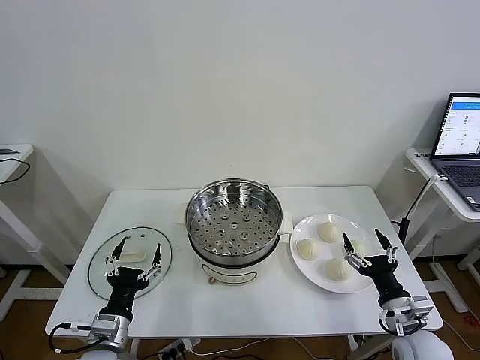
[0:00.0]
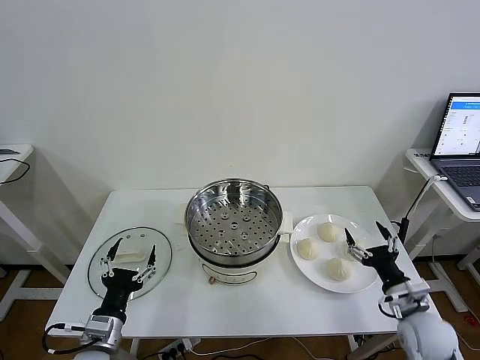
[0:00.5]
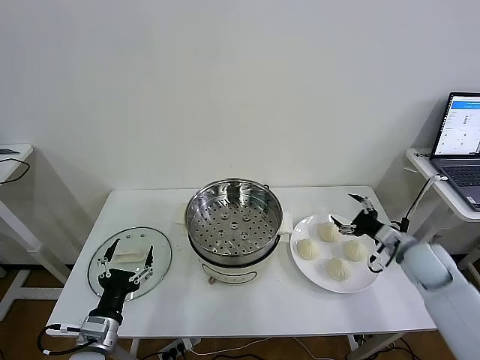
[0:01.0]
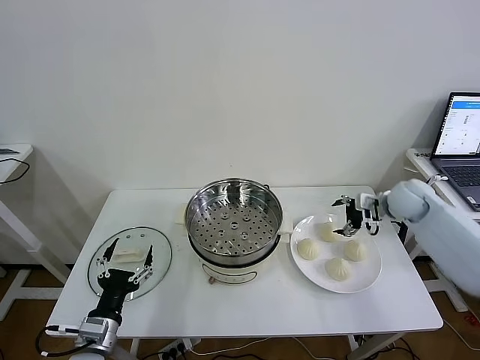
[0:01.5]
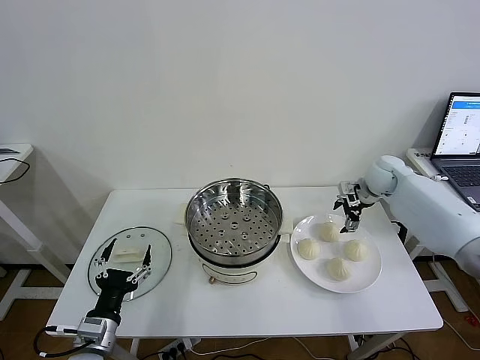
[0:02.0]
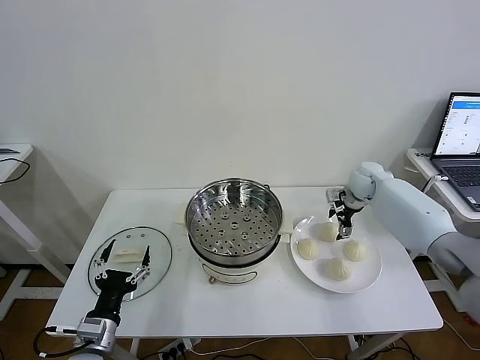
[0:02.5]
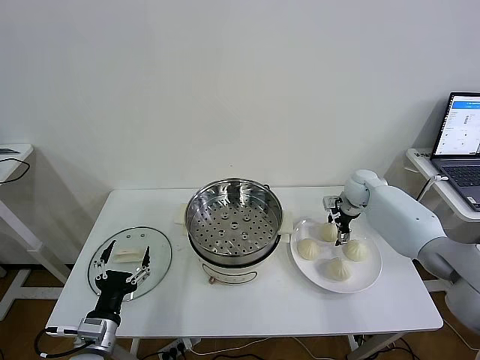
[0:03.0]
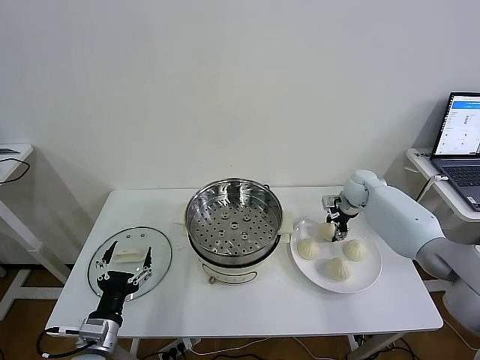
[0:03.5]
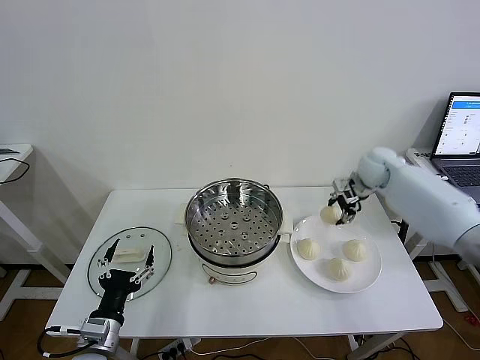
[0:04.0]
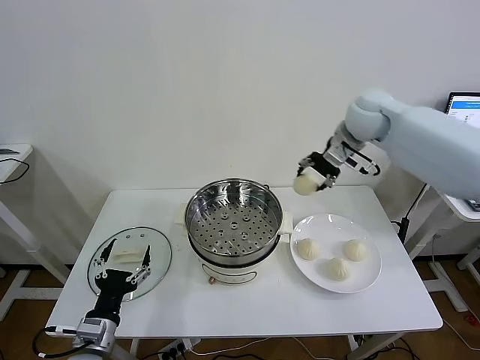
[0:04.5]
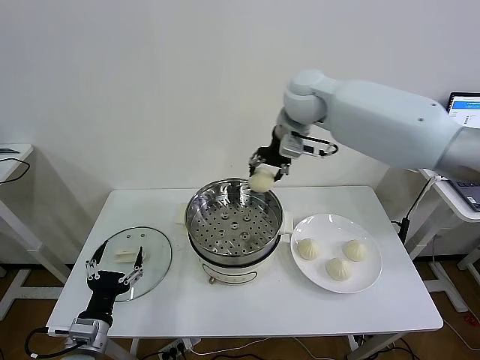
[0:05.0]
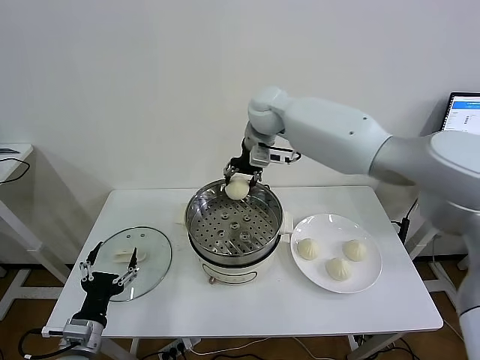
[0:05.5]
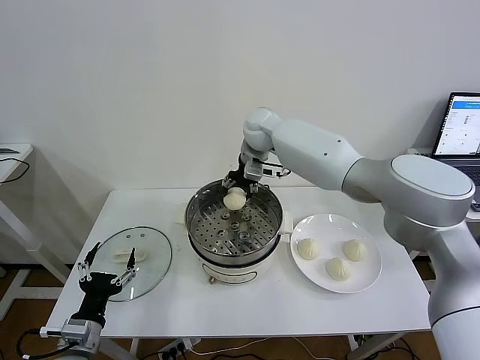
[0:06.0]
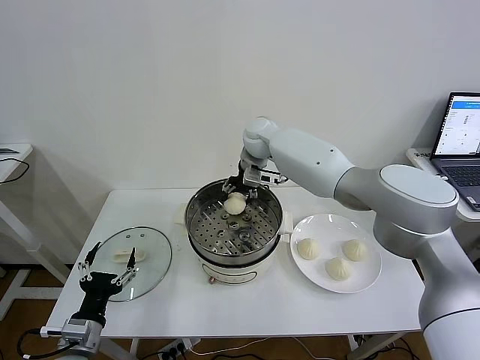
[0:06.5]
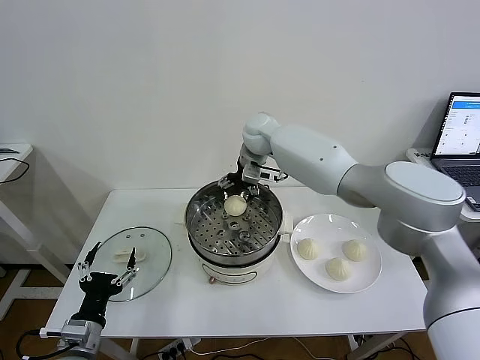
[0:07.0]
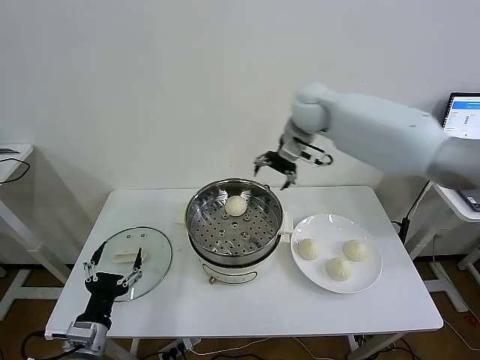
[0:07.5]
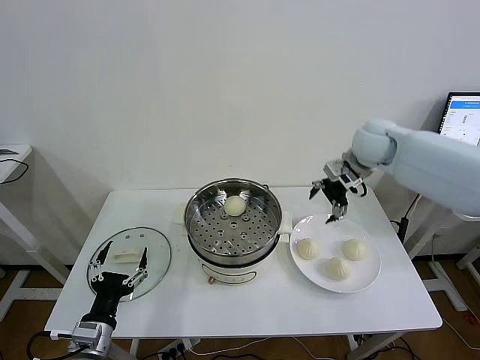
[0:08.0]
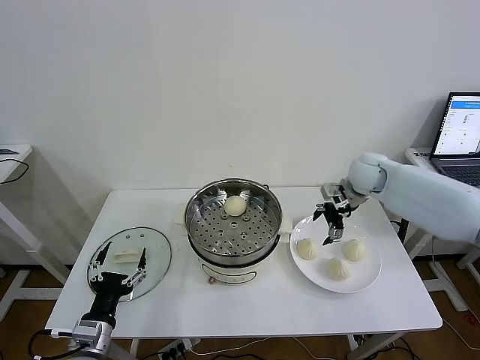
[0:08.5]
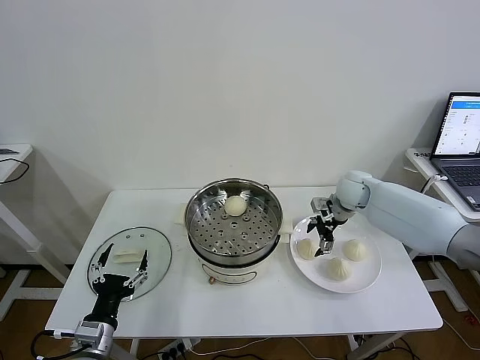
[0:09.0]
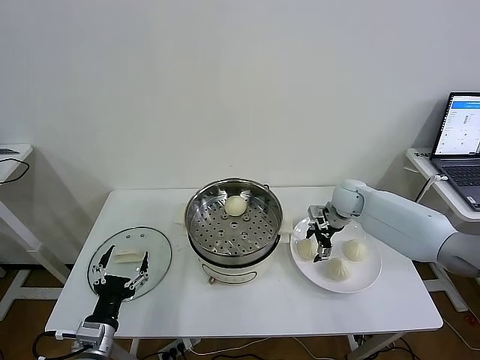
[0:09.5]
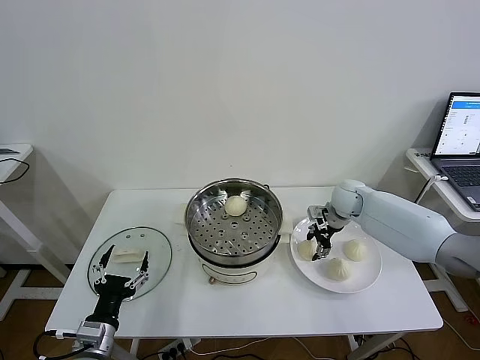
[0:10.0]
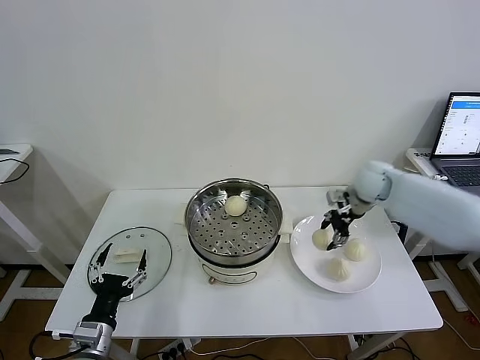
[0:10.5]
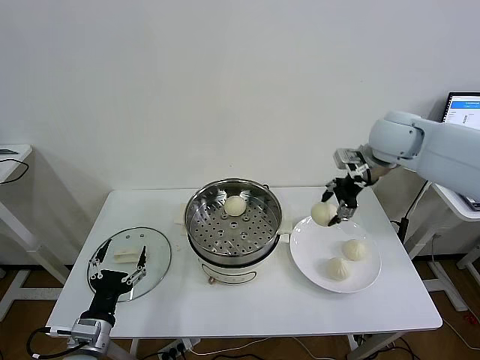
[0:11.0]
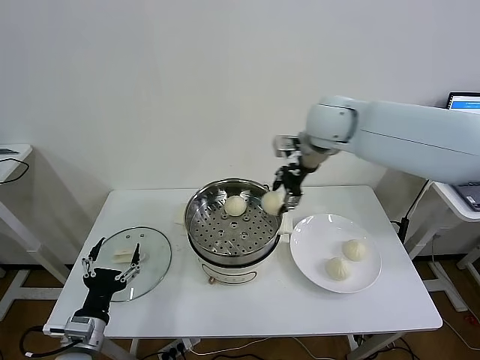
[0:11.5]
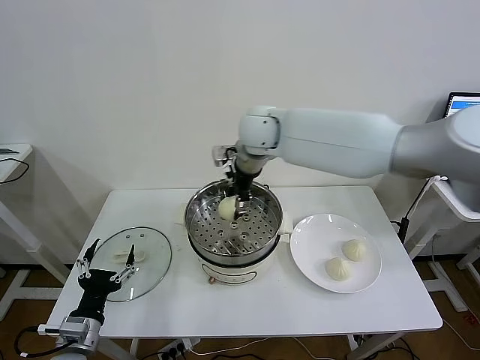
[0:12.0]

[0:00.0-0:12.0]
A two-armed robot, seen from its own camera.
Task of the whole recording: take steamed baozi put them in steamer then cover it.
Step, 0.0 to 3.0 s: Grasp the baozi in the plate with right gripper.
Step, 3.5 to 6.5 s: Place the baozi on the steamer with right gripper.
Step, 7.0 to 9.5 s: Grasp the baozi in the plate with right gripper.
2.0 to 4.0 s: The right gripper shifts about 5 cm upward, and closes up.
4.0 to 6.0 s: The right gripper goes roughly 30 cm to the left.
6.0 to 8.0 s: The right gripper shifts some 25 cm to the right, and opens.
8.0 to 10.0 s: The right gripper goes approximately 15 cm downward, and closes up.
10.0 to 12.0 s: The right gripper goes some 35 cm to the left and upward.

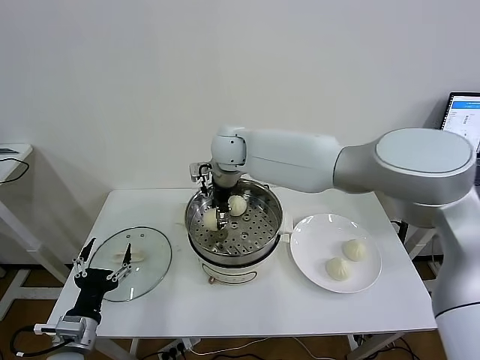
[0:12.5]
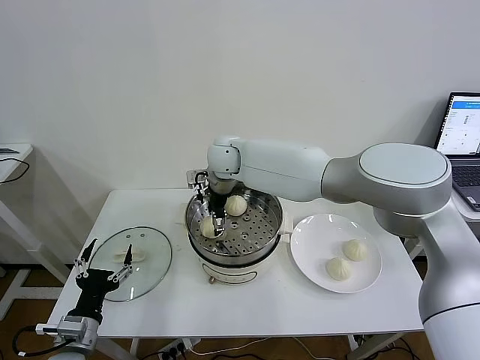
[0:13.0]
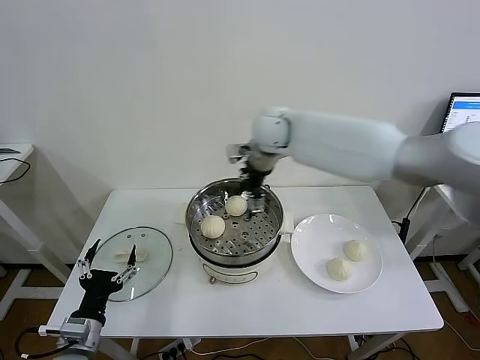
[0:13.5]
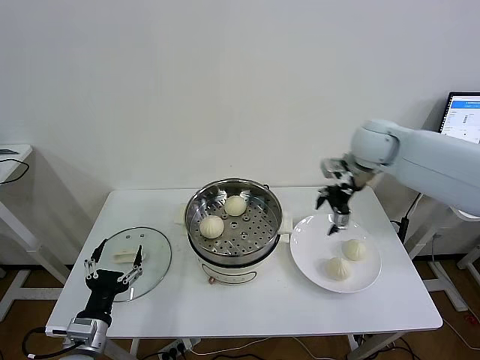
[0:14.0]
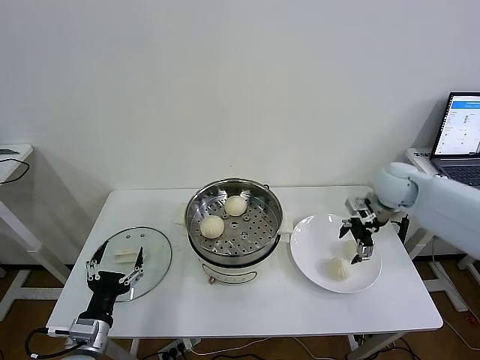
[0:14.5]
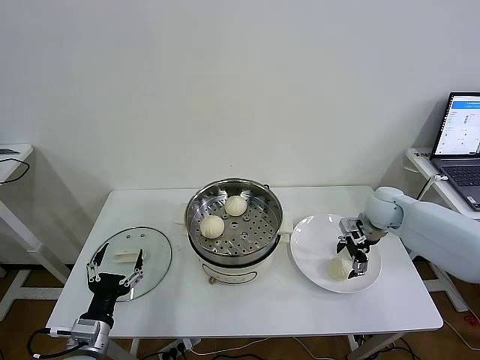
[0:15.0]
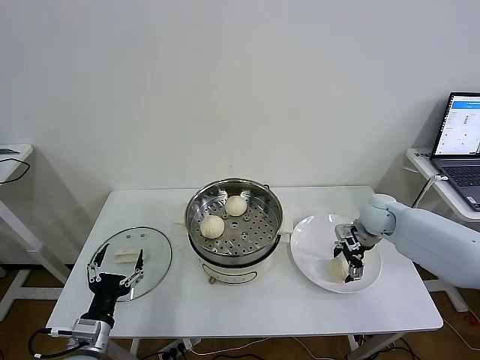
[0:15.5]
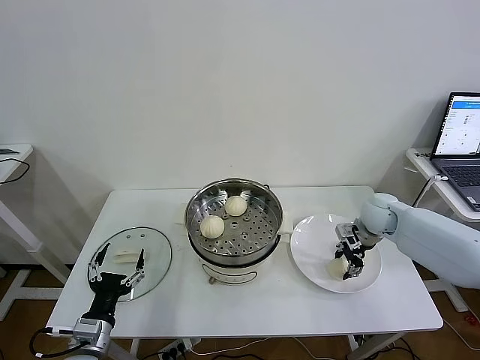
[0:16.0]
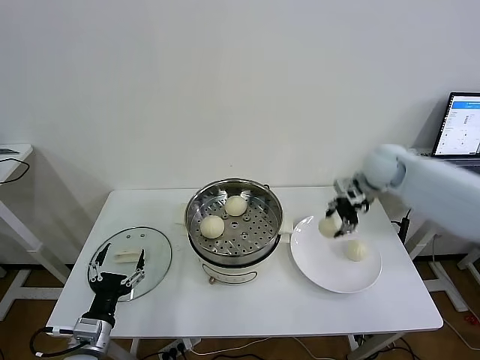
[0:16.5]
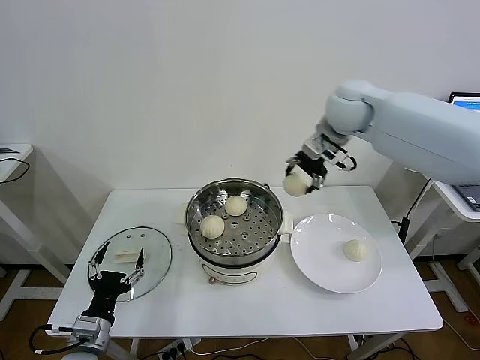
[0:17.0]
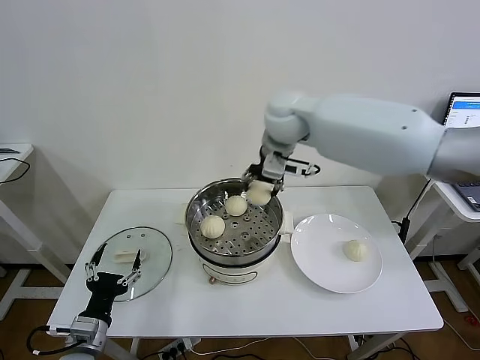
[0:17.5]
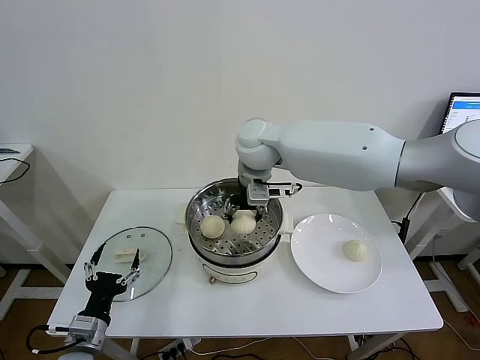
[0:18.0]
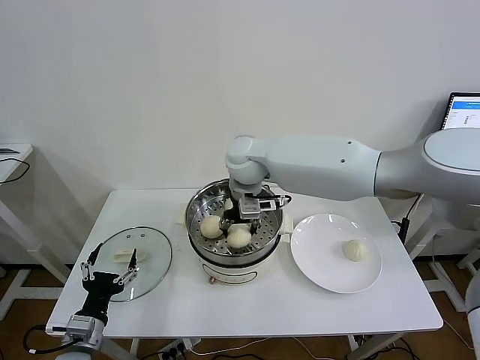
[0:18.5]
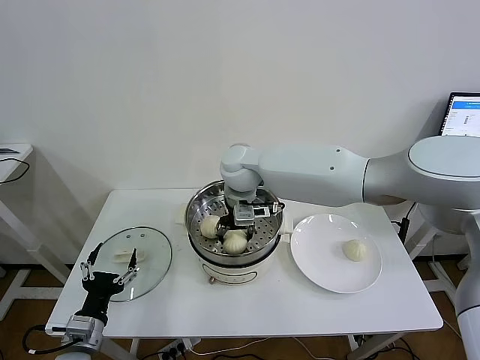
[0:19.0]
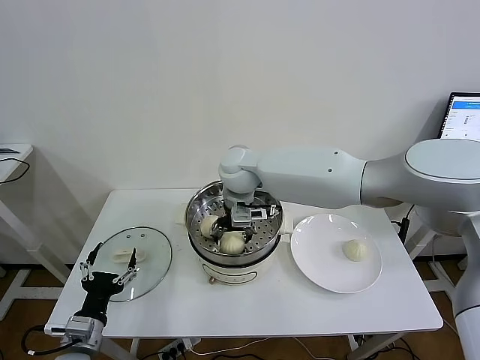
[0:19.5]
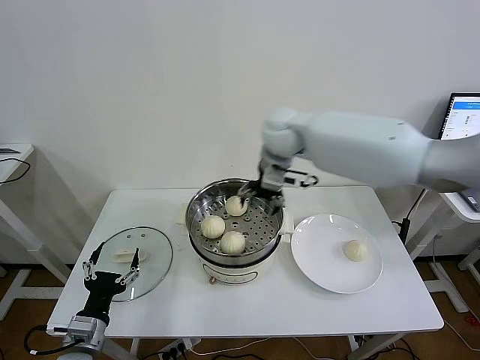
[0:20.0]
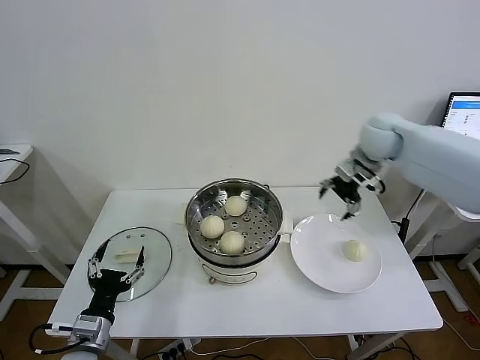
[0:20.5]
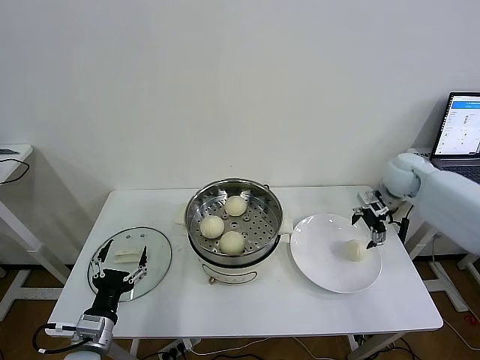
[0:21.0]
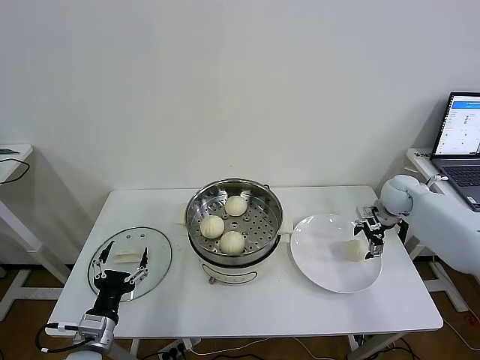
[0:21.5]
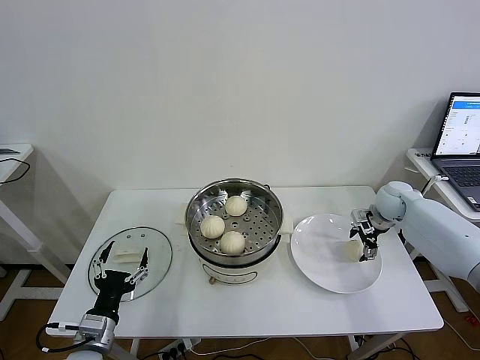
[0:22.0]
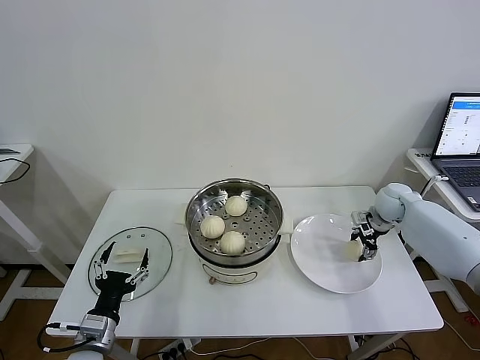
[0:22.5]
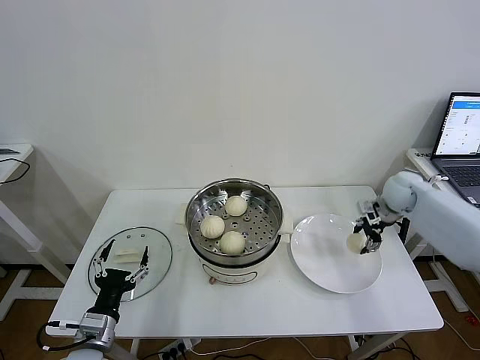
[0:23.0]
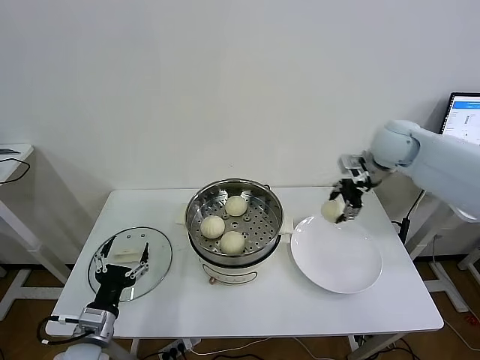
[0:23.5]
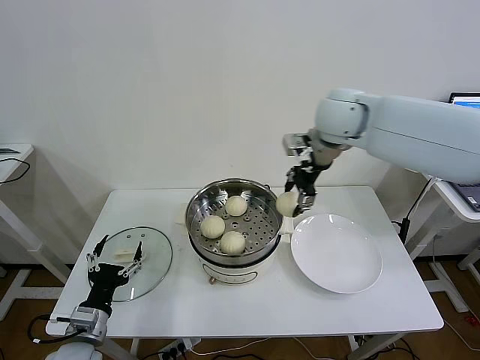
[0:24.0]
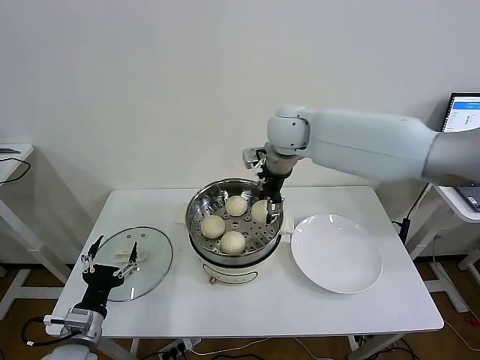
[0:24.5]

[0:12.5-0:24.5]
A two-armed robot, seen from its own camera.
Task of the whole recording: take steamed baozi put them in steamer then cover it.
Step, 13.5 to 15.5 s: Grasp the baozi in the plate with right gripper.
Step, 16.0 to 19.5 s: Place the baozi on the steamer with right gripper.
Step, 20.0 to 22.5 s: Grasp the baozi in the plate with right gripper.
12.5 to 14.5 s: The right gripper shifts approximately 40 cm to the right, and opens its fingers.
14.5 to 16.5 s: The right gripper moves upward, some 5 cm, and closes its fingers.
16.5 to 18.5 s: The right gripper heads to the left, covering approximately 30 cm, and opens up.
18.5 to 20.5 s: The right gripper is displaced to the right by some 30 cm, and opens.
20.5 to 22.5 s: The right gripper goes roughly 20 cm downward and to the right, and closes up.
22.5 to 24.5 s: The right gripper heads to the left and upward, covering some 40 cm.

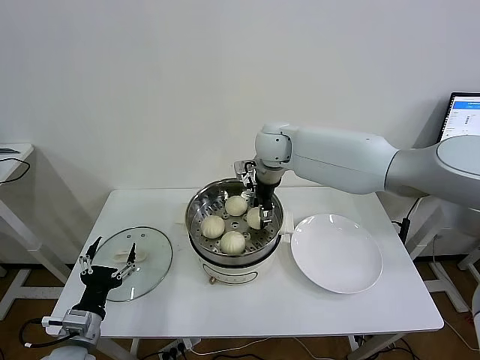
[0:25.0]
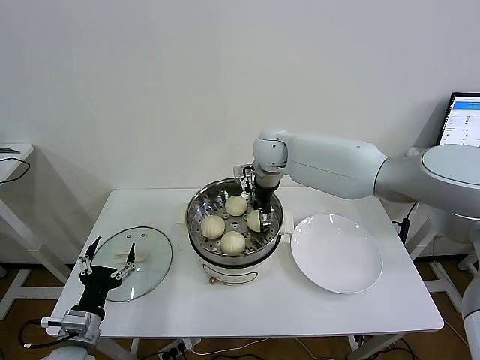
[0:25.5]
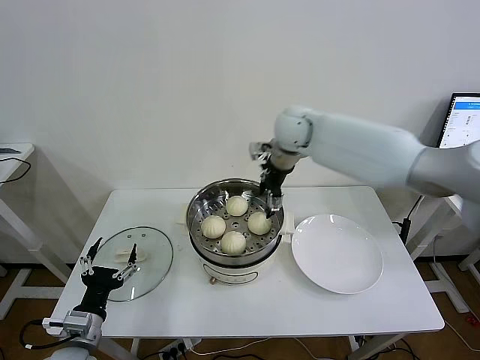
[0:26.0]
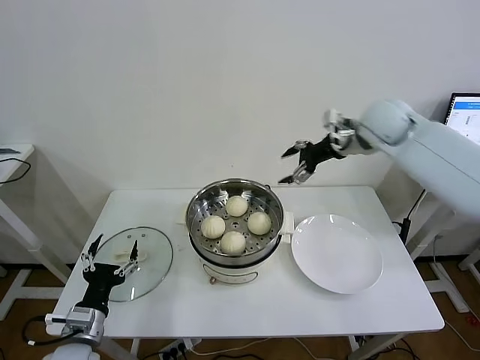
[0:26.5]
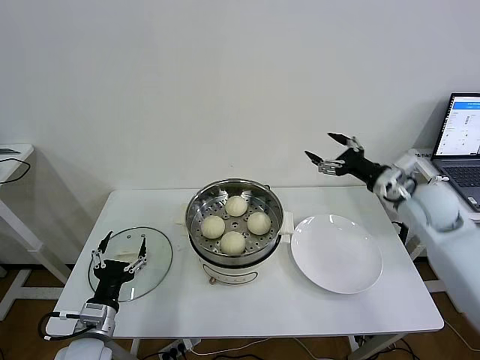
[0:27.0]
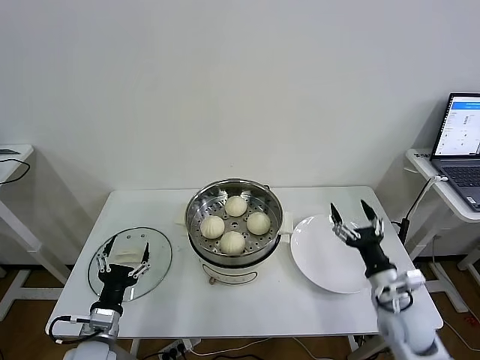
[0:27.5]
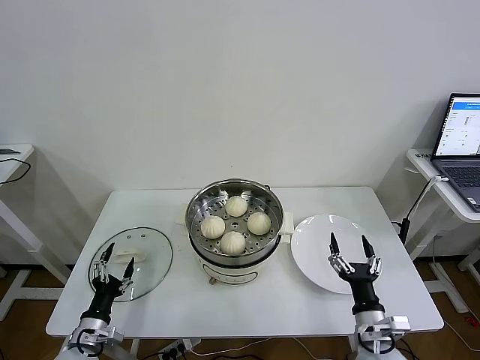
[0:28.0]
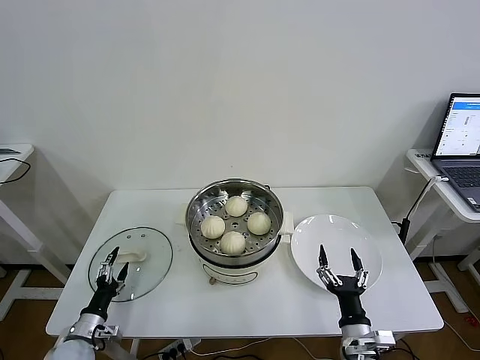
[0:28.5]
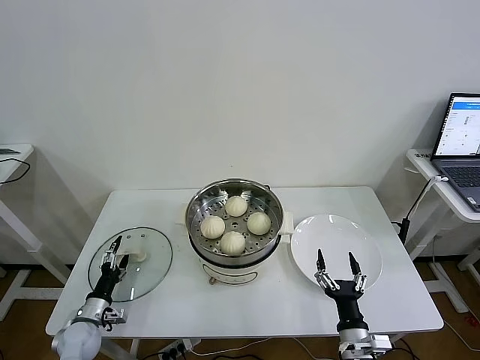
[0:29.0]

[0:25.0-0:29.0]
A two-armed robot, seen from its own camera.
Task of the whole recording: take steamed baozi put them in steamer then cover it.
25.0 to 27.0 s: The right gripper travels to the right and backward by some 35 cm, and opens up.
27.0 to 29.0 s: The right gripper moves backward, downward and to the left, some 40 cm. Meanwhile the left gripper is displaced downward, to the left and forward by approximately 20 cm.
